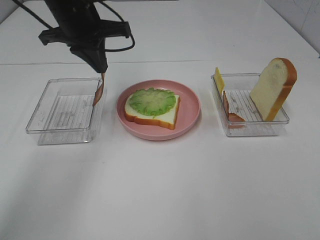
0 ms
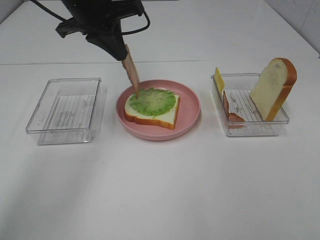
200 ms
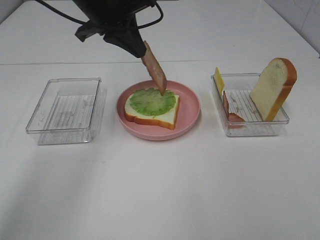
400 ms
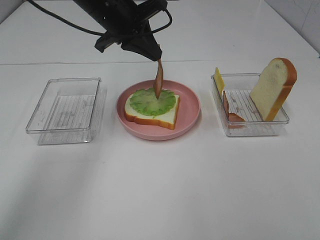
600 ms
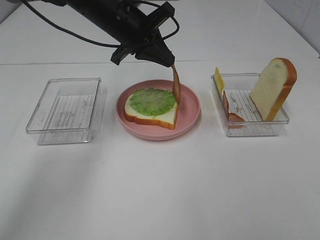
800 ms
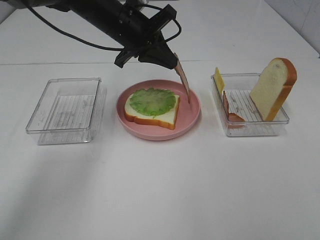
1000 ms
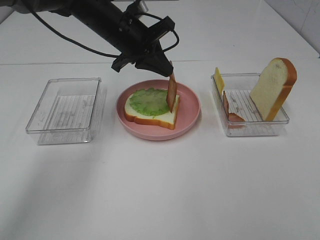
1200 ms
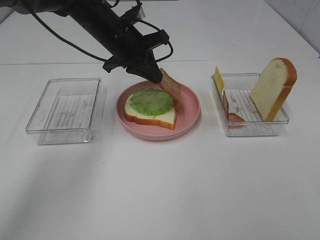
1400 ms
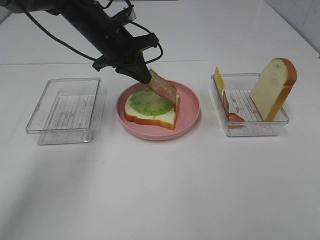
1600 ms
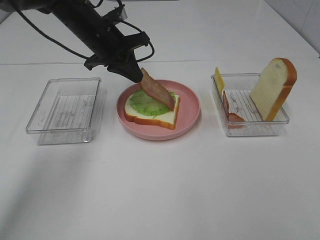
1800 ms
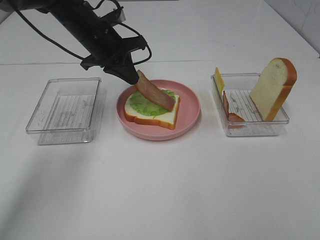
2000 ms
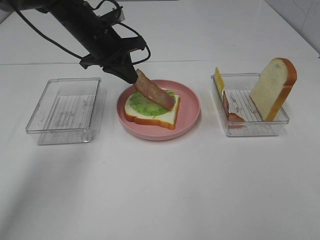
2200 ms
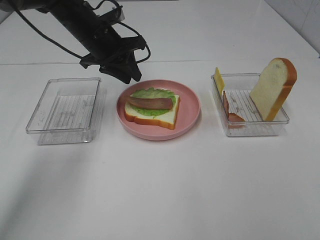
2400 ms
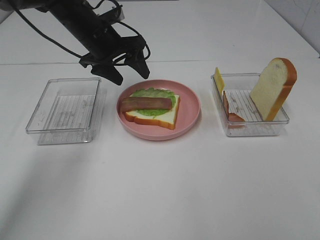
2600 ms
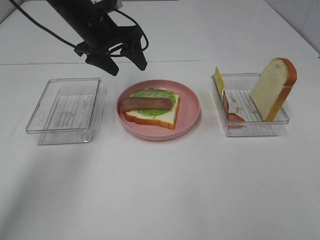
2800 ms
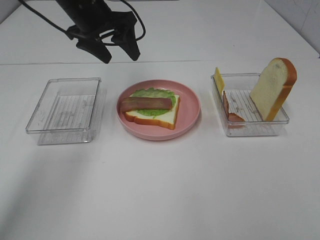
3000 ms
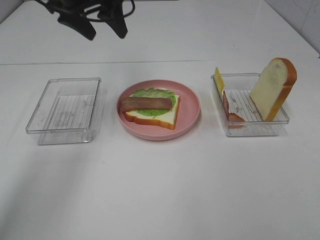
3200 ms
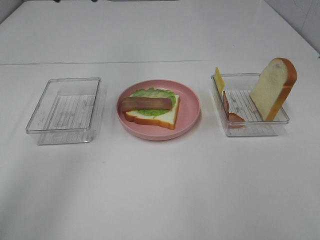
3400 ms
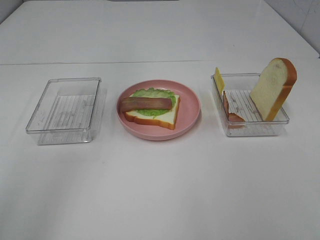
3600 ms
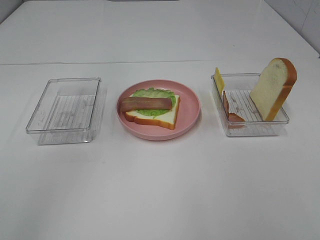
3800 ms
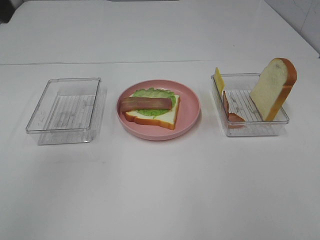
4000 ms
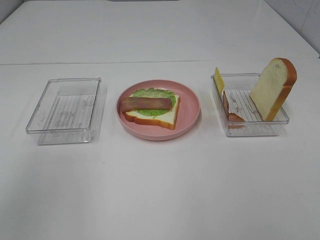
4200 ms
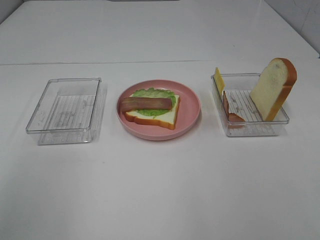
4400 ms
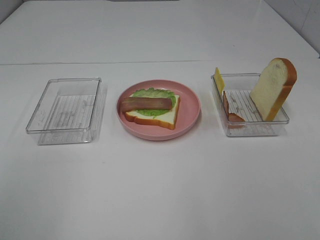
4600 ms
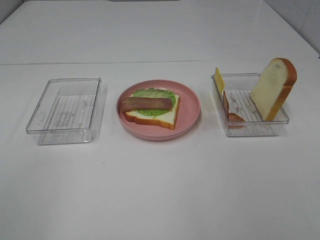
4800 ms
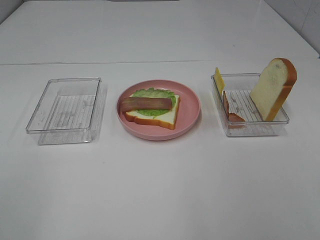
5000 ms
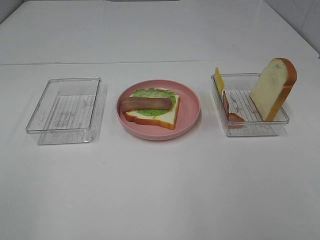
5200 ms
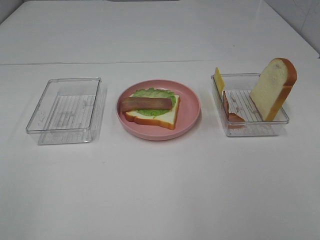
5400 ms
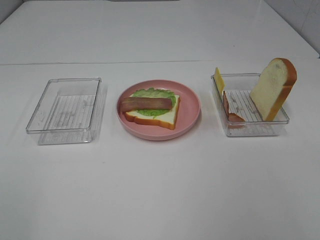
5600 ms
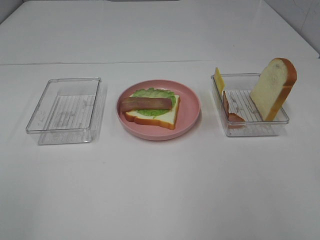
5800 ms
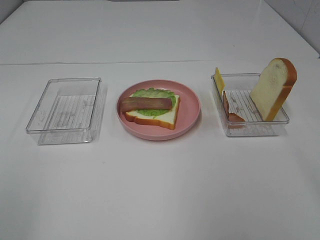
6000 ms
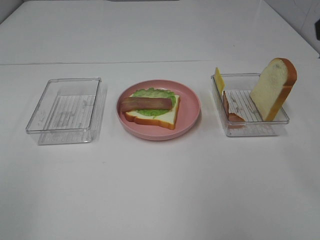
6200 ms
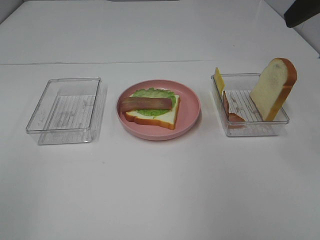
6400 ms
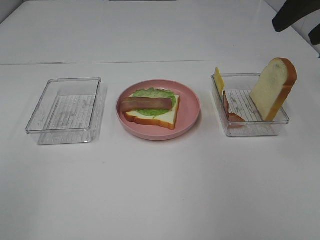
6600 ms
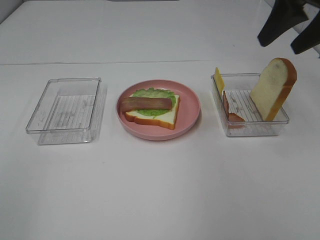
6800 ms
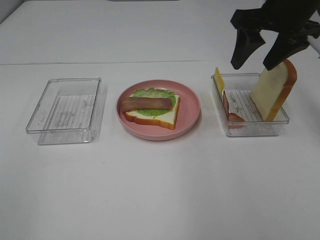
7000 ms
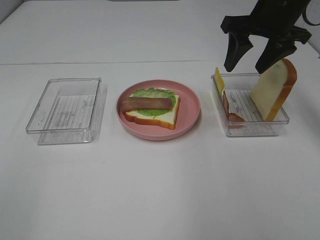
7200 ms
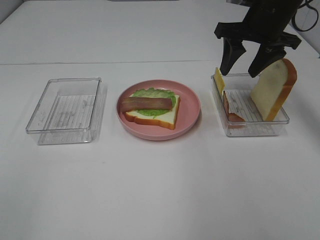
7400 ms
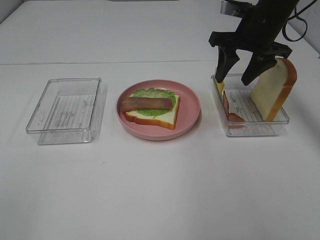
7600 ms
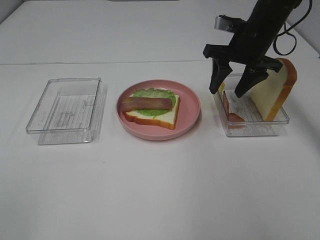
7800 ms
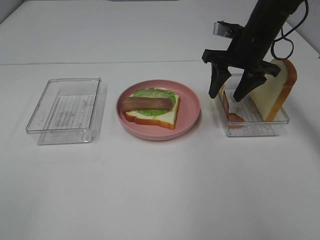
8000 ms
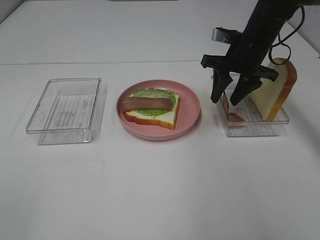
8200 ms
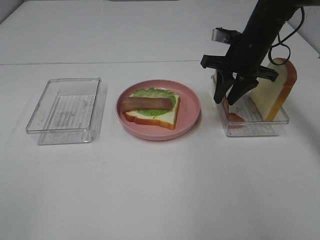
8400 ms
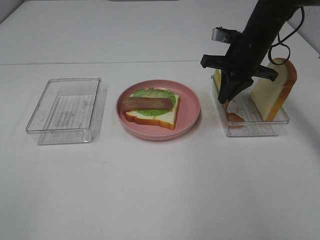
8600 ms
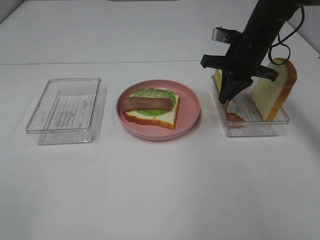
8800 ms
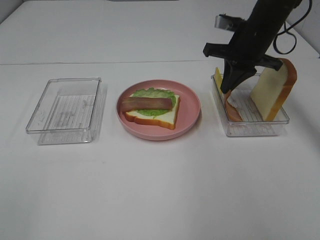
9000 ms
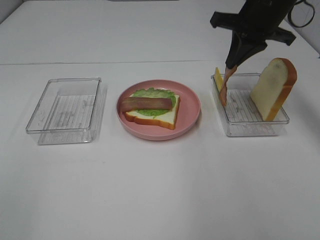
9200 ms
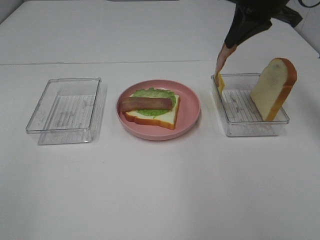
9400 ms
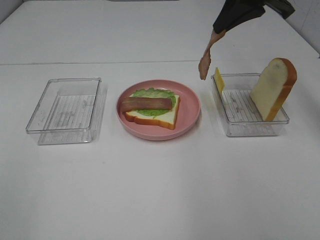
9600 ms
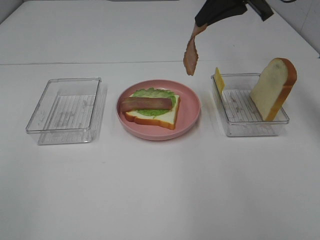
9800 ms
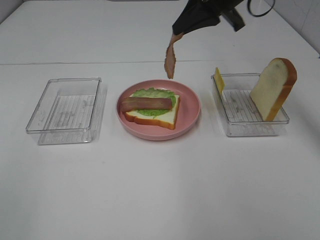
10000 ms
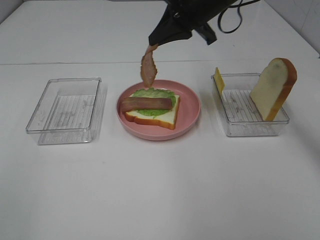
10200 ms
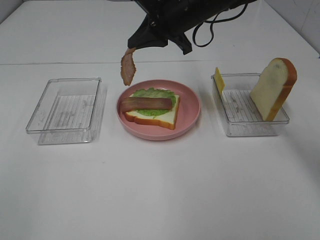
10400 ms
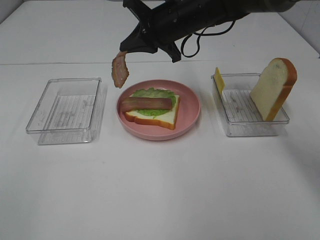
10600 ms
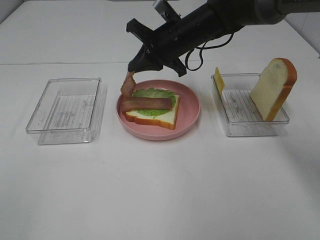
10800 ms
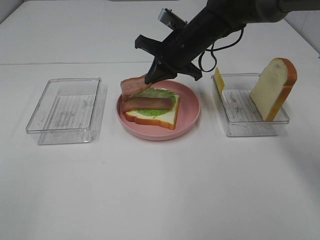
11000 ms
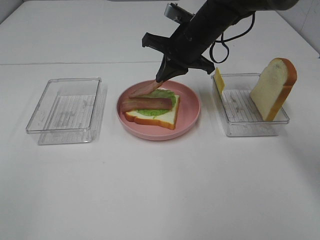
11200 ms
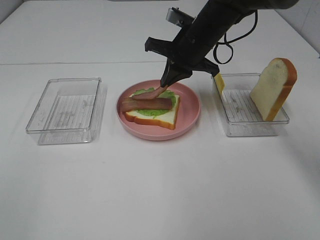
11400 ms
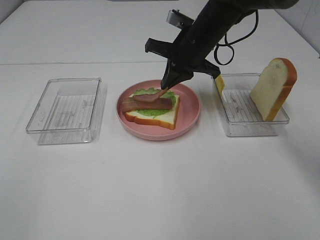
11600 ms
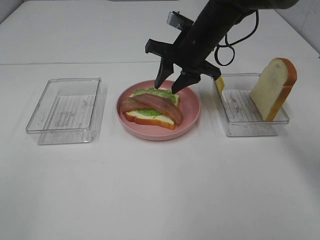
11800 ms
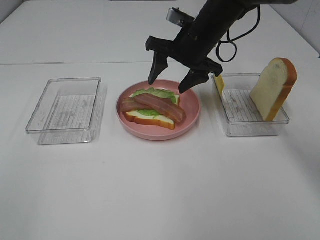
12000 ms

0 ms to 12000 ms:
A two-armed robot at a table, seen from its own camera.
Task of the whole recording: Make sandwiches.
Step, 0 ms to 2600 ms: Left hand:place bacon on lettuce slice.
Step, 2800 ms to 8600 ms: Right hand:grab the bacon.
Step, 8800 ms to 12000 ms: Right hand:place bacon on bacon.
0 ms to 1600 ms: The left gripper is displaced downward by roughly 5 cm.
1600 ms to 3000 ms: The left gripper travels upward by about 5 cm, and opens up.
3000 ms to 4400 ms: The left gripper shifts approximately 35 cm backward and to the left.
6000 ms to 7600 ms: The right gripper goes approximately 30 cm forward and downward.
7600 ms to 9000 ms: The right gripper closes.
9000 ms to 10400 ms: The right gripper moves to the left, roughly 10 cm.
10400 ms to 12000 ms: The right gripper opens up.

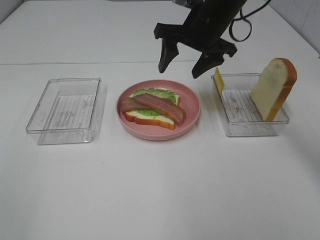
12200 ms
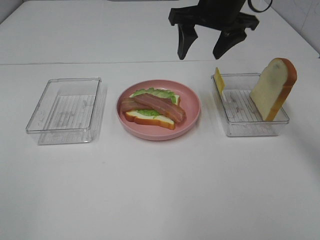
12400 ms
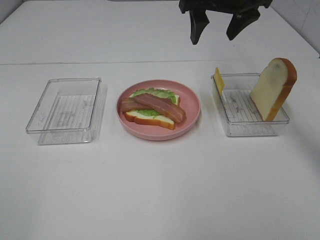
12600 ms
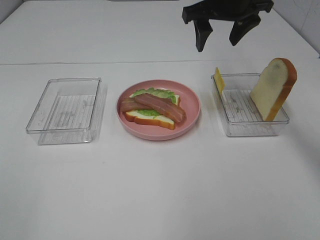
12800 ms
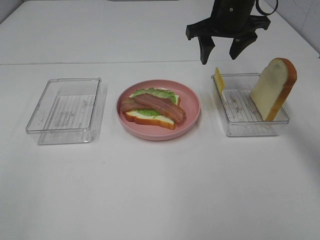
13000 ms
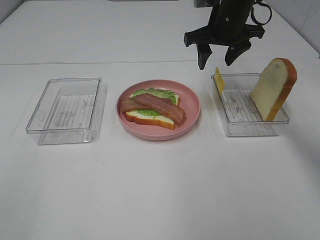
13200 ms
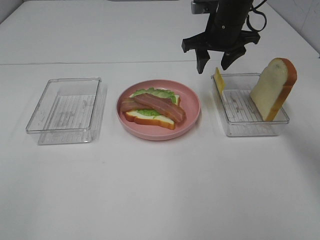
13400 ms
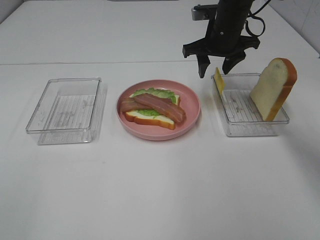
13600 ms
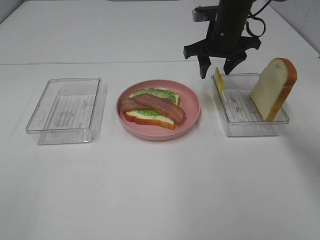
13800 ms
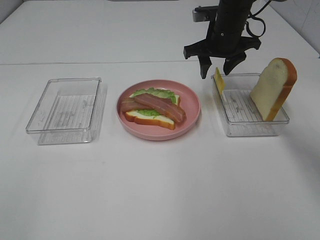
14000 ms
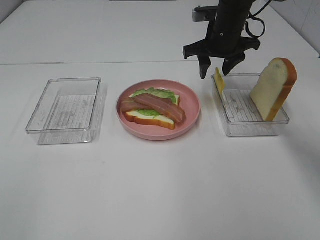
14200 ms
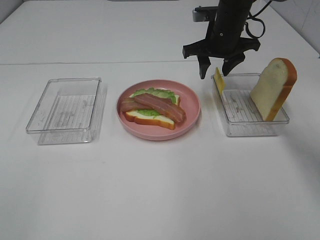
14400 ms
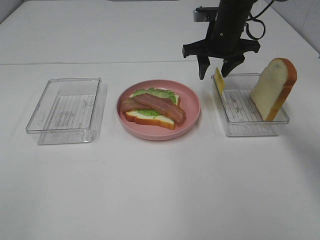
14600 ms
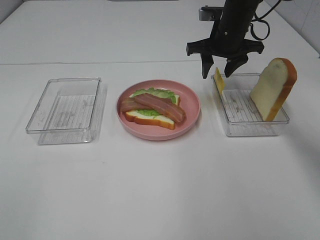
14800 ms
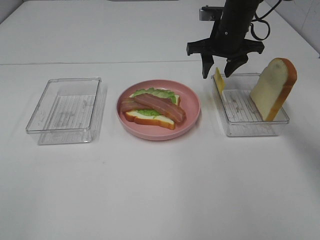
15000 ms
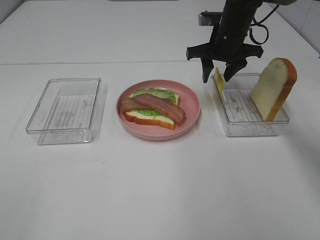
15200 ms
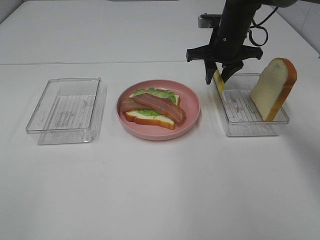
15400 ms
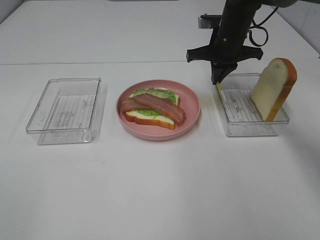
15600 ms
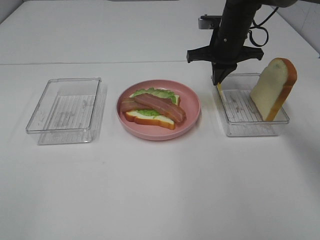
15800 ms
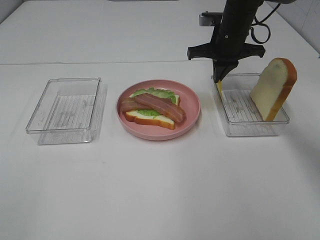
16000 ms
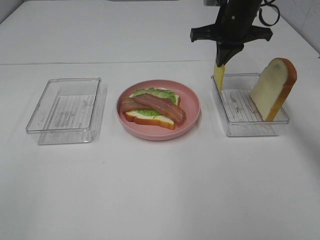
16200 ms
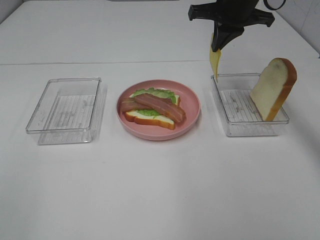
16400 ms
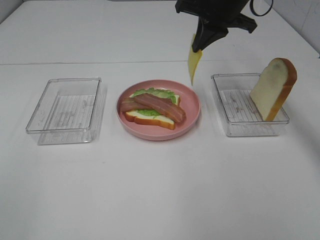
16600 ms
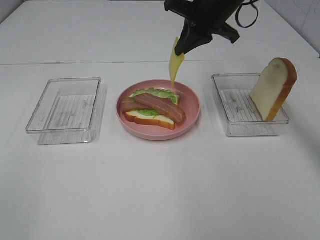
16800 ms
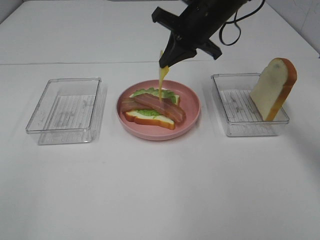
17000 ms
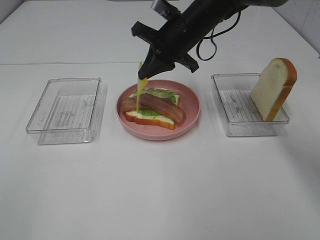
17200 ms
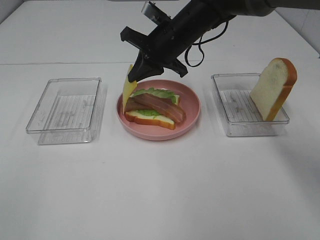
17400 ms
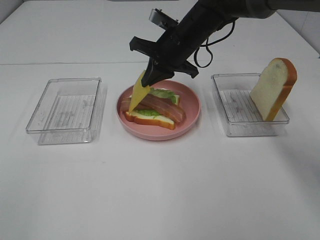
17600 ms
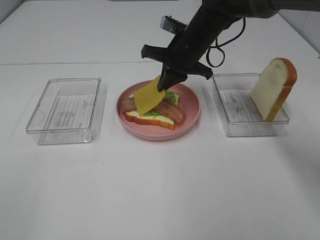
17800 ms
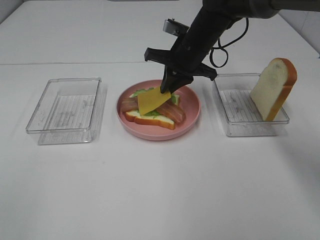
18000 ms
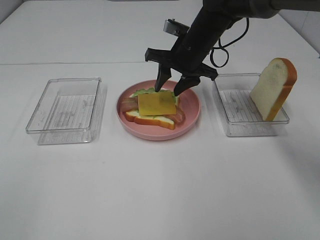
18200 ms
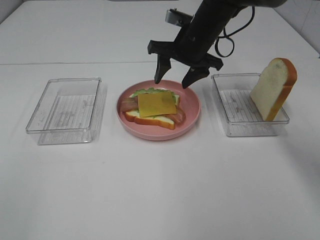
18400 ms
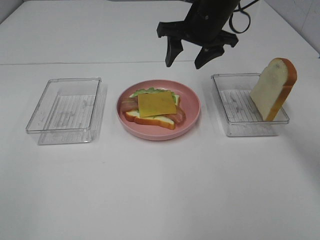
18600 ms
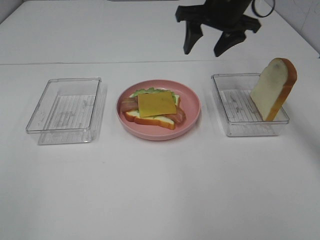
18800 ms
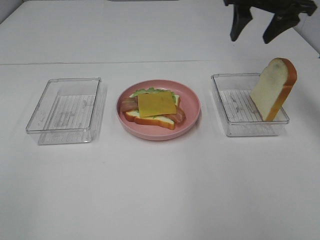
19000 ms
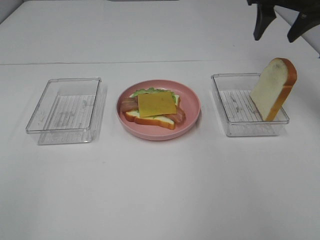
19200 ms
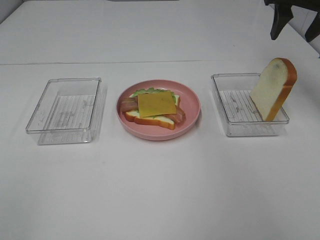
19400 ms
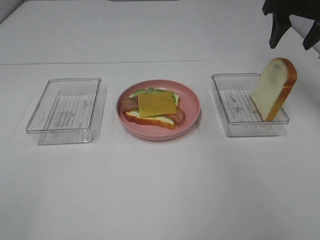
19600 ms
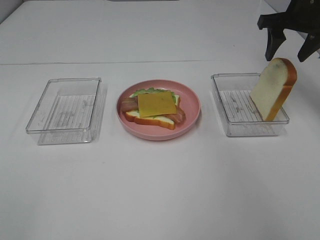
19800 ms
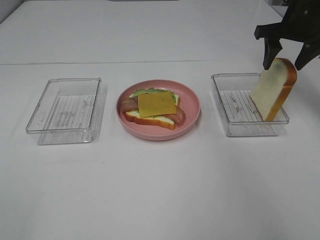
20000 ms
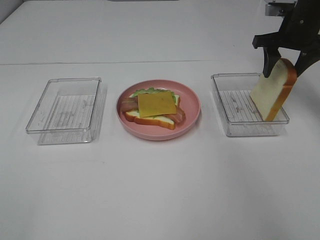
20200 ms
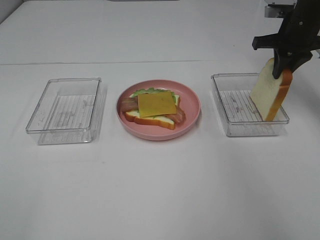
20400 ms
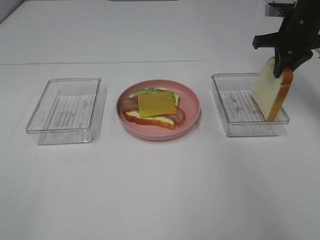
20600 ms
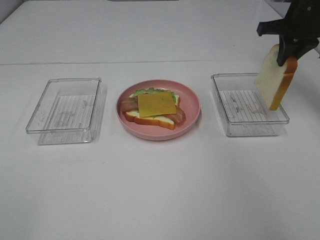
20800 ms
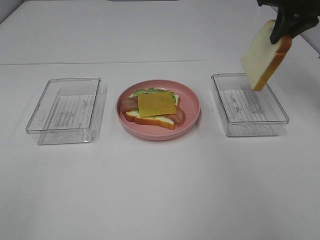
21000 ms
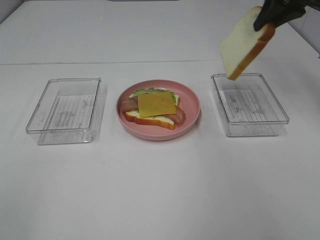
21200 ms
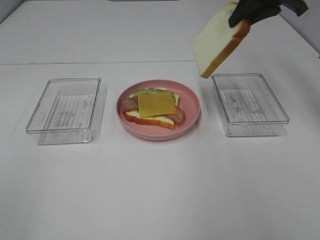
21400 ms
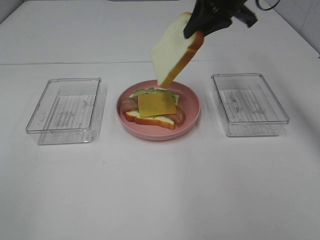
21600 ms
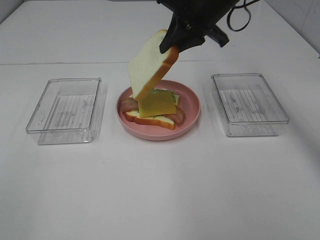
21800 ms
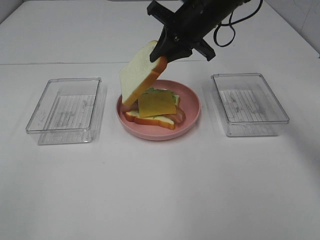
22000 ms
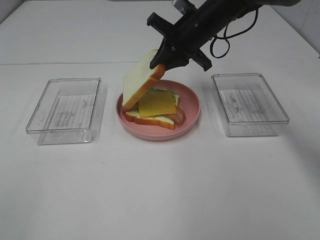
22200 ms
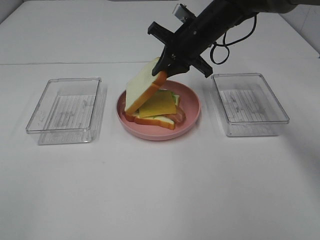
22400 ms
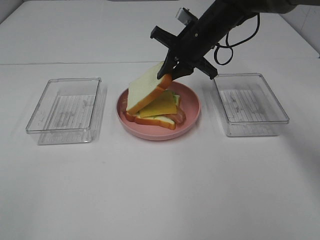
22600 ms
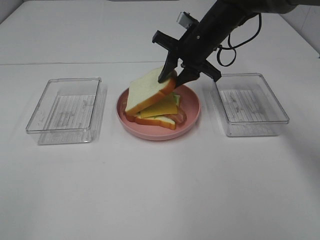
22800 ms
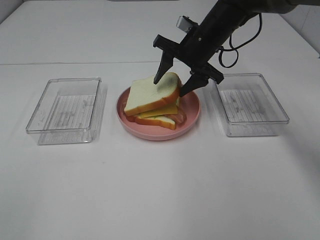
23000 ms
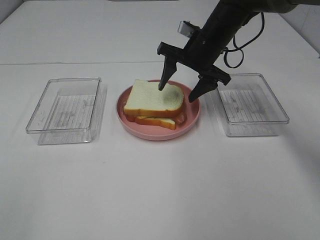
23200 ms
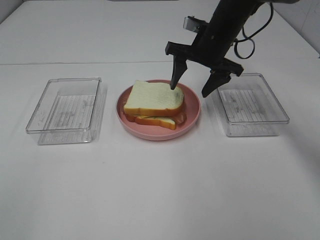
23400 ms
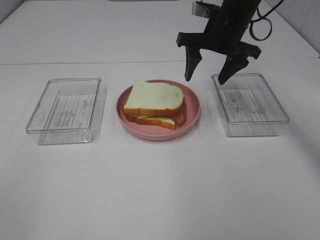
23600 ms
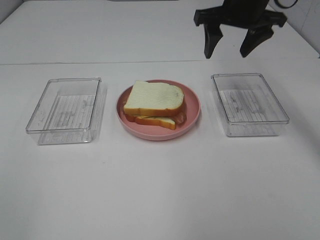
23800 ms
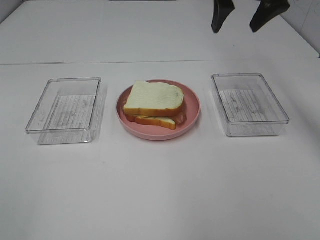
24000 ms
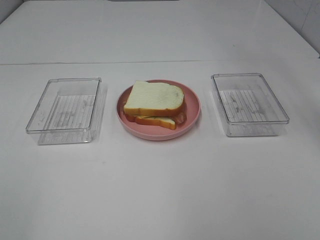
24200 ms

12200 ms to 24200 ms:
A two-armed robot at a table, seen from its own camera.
Task of the whole recording: Make sandwiches.
Step, 12200 ms to 15600 ms: Right hand:grab the cheese slice.
Step, 15800 ms to 18200 ms: Right hand:place the cheese slice on top of the bacon.
Step, 18400 ms to 20600 ms: Right hand:grab the bread slice.
Step, 20800 ms to 23200 ms: Right hand:place the bread slice on the cheese slice.
12200 ms to 13800 ms: The right gripper shifts about 10 cm forward and downward.
13800 ms to 15200 ms: The grippers stay close to where they were, moving slightly.
15200 ms to 16600 ms: The right gripper moves upward, about 10 cm, and closes up.
16600 ms to 18200 ms: The right gripper moves downward, about 10 cm, and opens its fingers.
18200 ms to 19800 ms: The right gripper goes some 20 cm to the right and upward.
19800 ms to 21200 ms: The right gripper travels upward by approximately 5 cm, and closes.
21200 ms to 22600 ms: The right gripper travels to the left and downward by roughly 20 cm.
22600 ms to 24200 ms: The right gripper goes about 25 cm upward and backward, and opens up.
